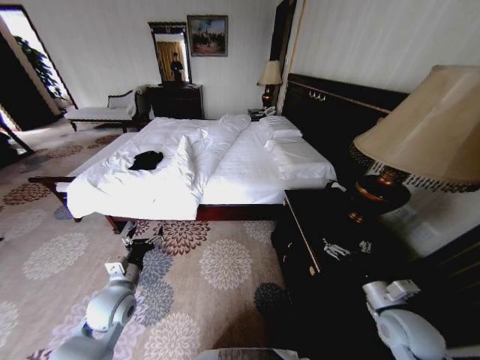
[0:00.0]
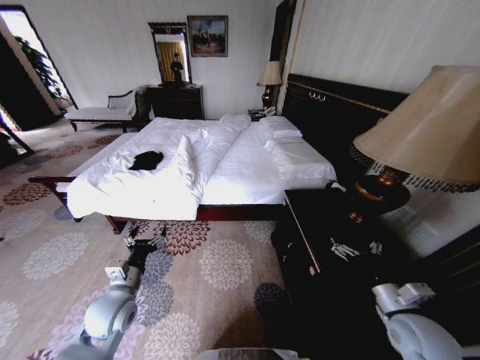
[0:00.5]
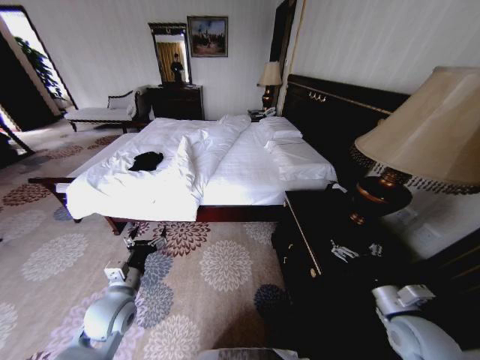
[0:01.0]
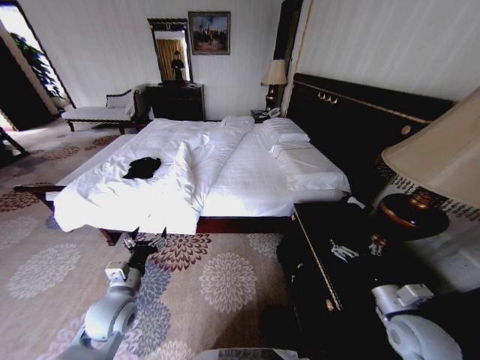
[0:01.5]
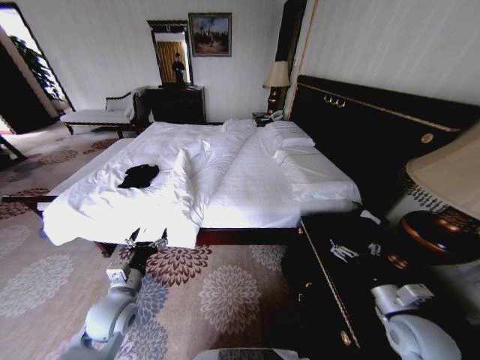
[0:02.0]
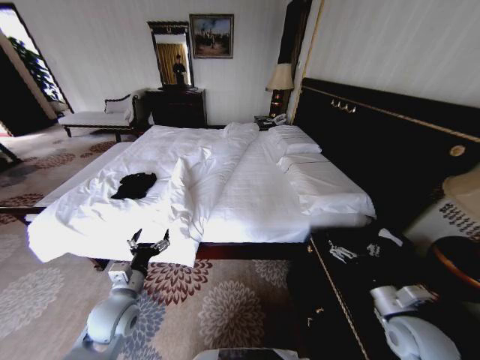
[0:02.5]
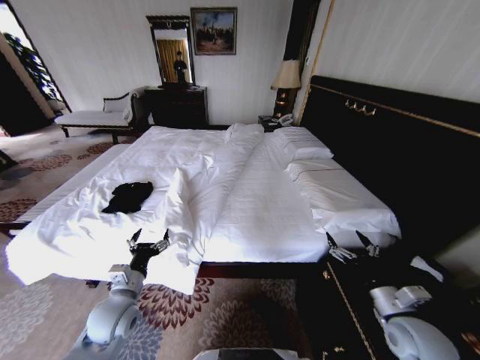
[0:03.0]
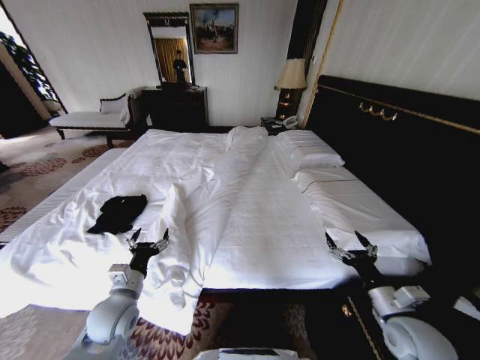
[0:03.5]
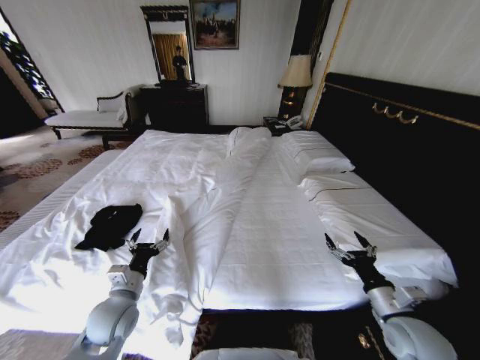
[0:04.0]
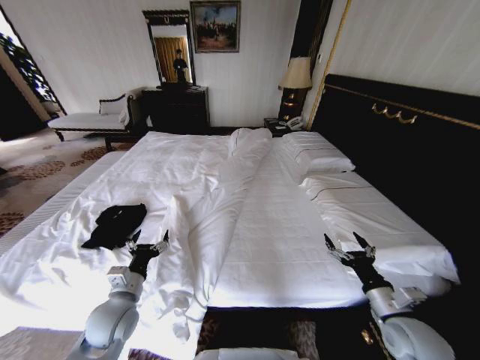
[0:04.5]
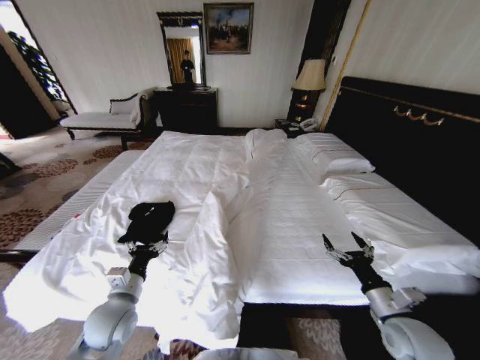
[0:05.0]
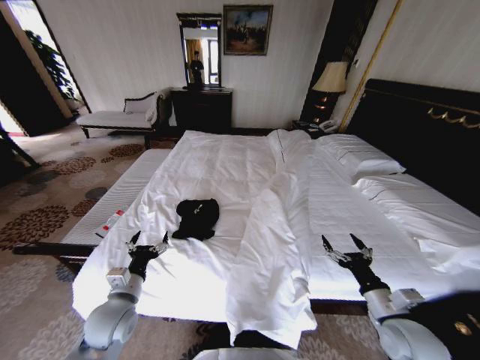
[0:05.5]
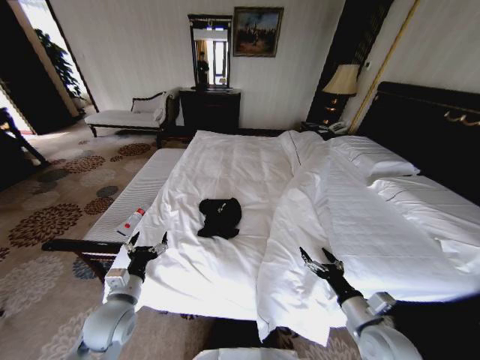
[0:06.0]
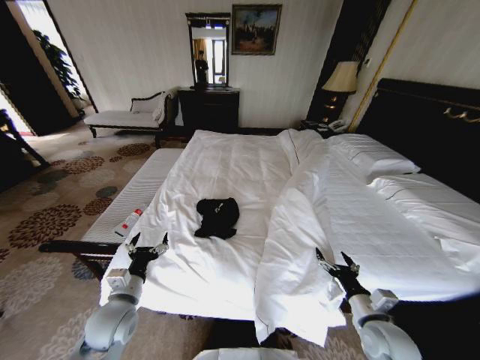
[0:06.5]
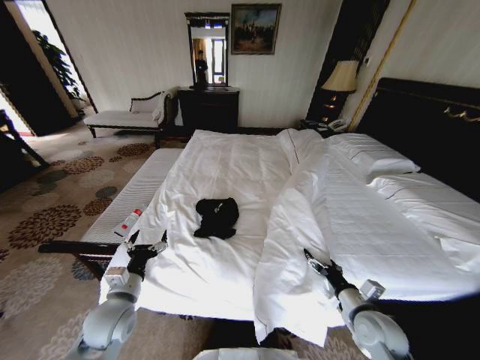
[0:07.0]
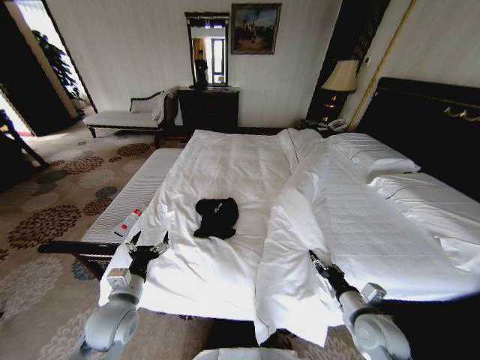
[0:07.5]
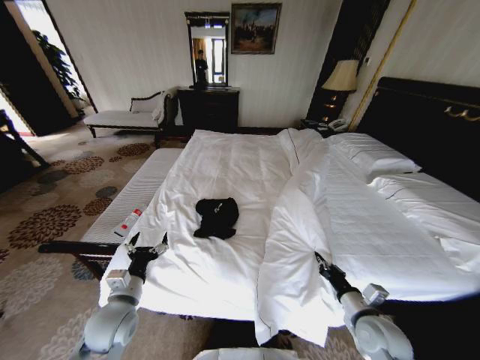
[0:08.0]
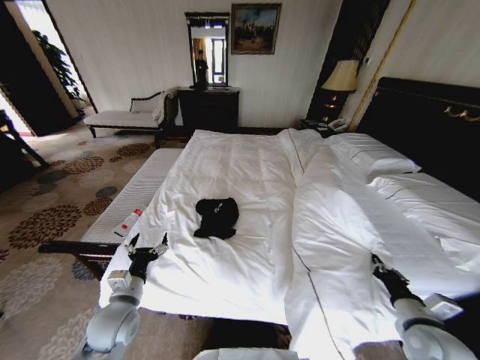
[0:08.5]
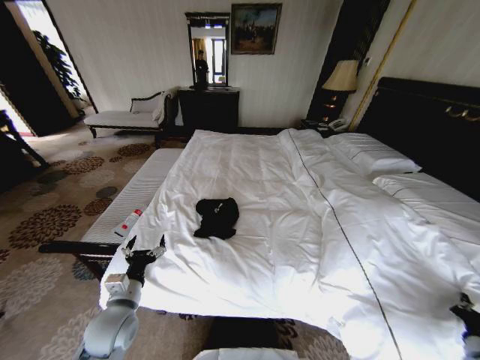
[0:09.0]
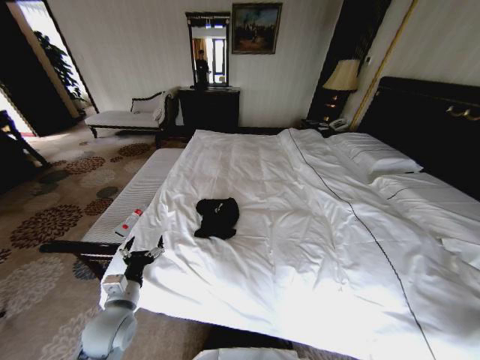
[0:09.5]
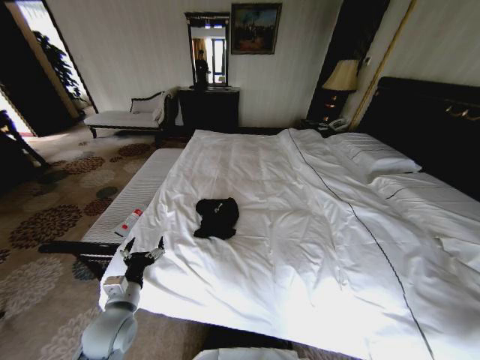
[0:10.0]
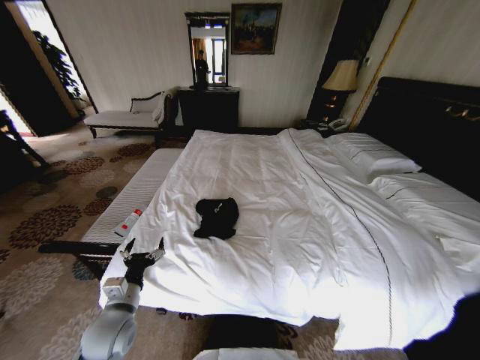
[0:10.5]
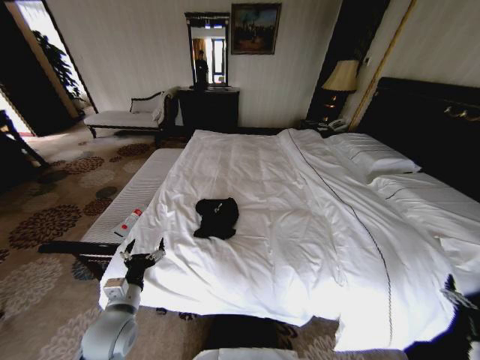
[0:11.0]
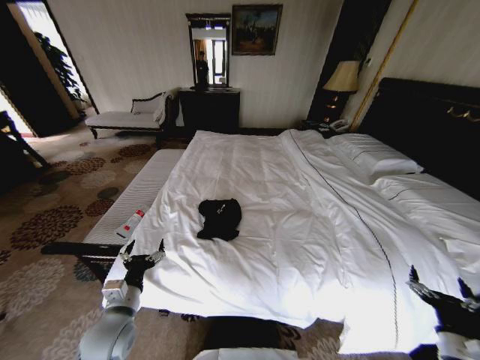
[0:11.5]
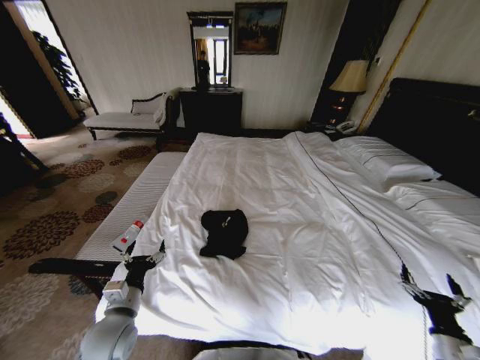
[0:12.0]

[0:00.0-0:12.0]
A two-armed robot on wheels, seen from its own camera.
Task of the whole recording: Fold the clothes on the bed.
4.0 to 6.0 s: The right gripper ends up about 5 cm from where it was.
6.0 to 8.0 s: The right gripper closes up.
8.0 to 10.0 s: The right gripper shifts about 35 cm to the right.
10.0 to 12.0 s: The right gripper moves to the left, some 15 cm, and opens its fingers.

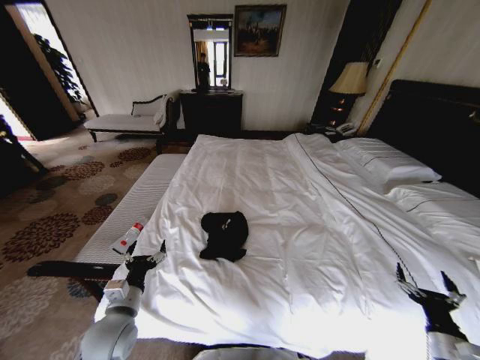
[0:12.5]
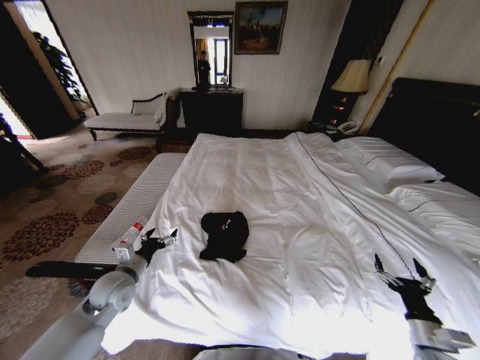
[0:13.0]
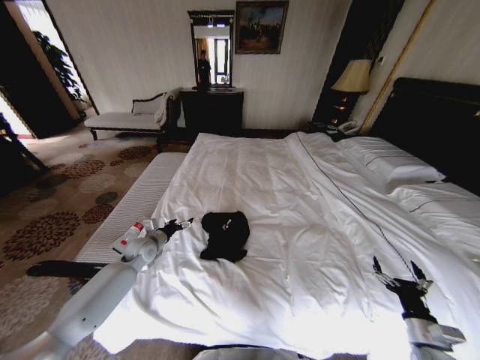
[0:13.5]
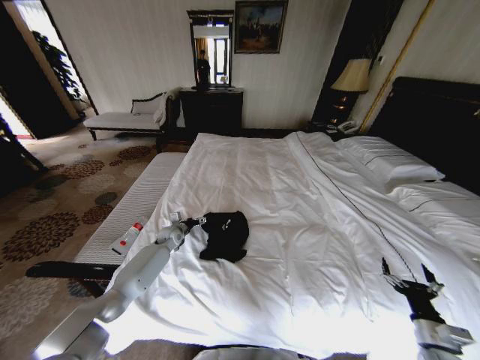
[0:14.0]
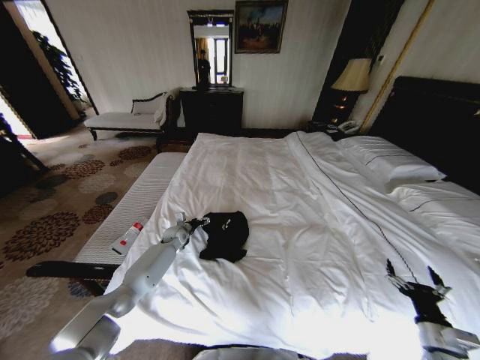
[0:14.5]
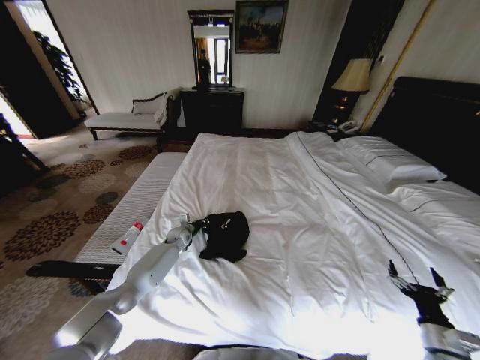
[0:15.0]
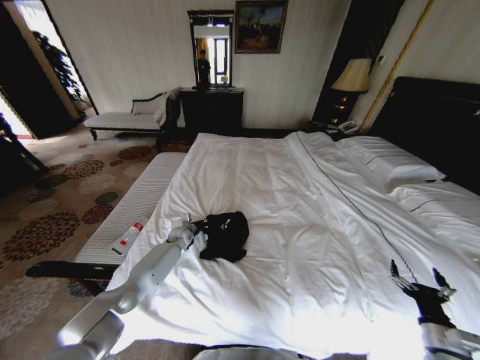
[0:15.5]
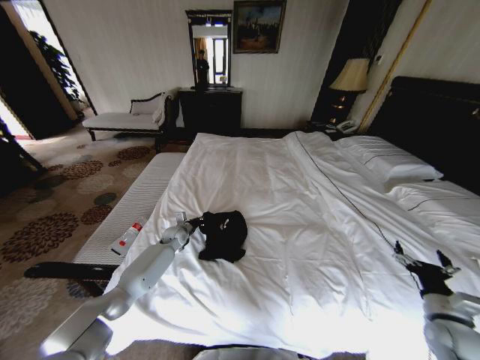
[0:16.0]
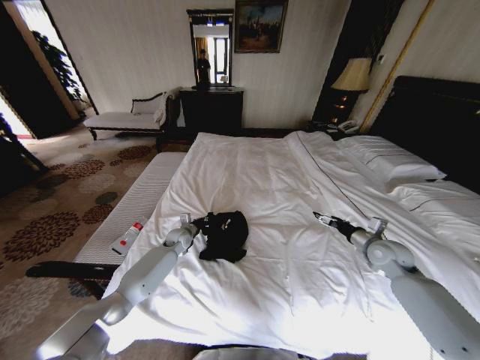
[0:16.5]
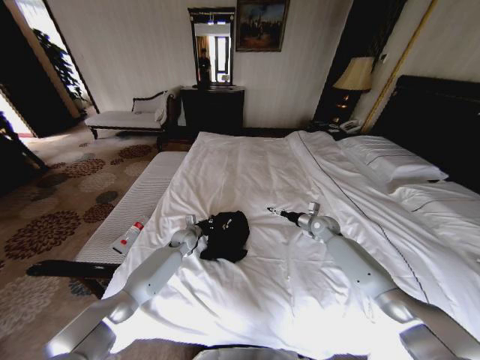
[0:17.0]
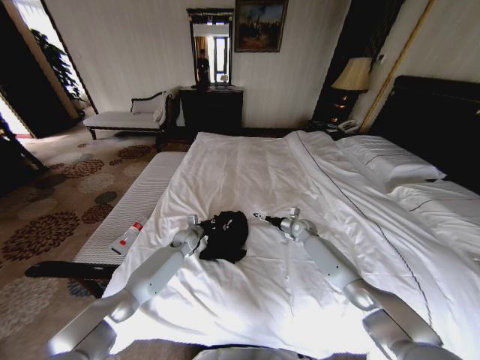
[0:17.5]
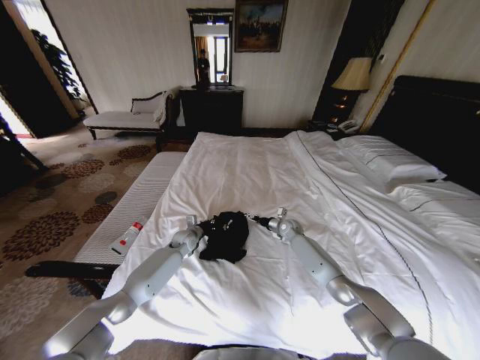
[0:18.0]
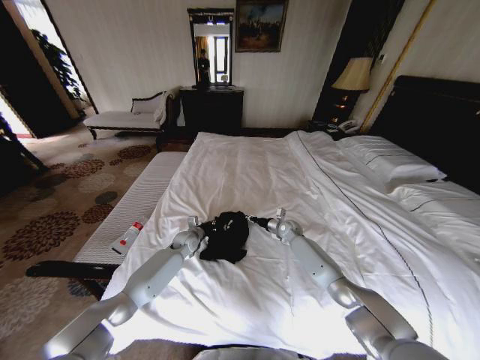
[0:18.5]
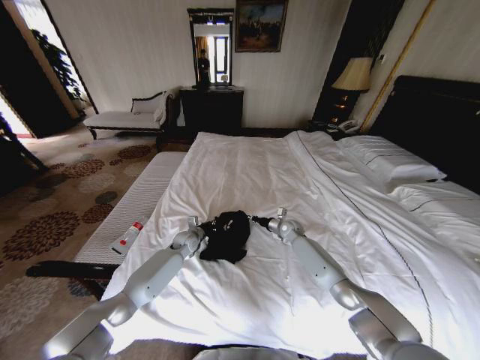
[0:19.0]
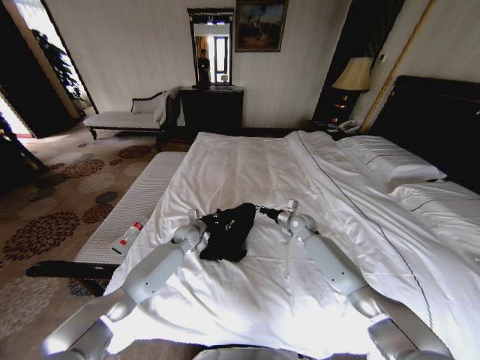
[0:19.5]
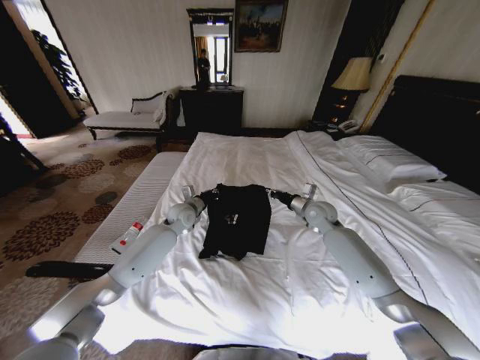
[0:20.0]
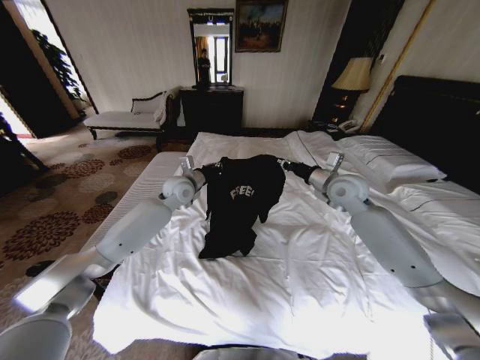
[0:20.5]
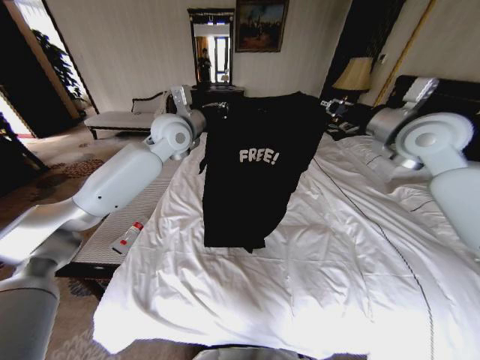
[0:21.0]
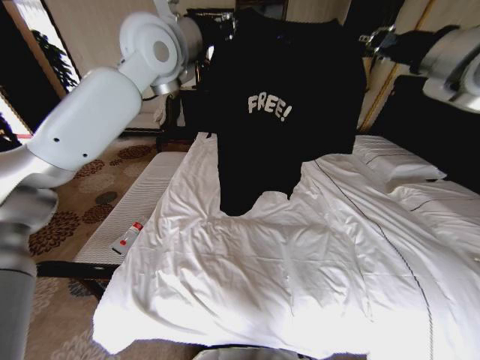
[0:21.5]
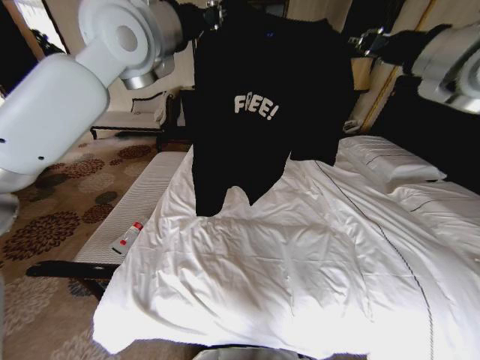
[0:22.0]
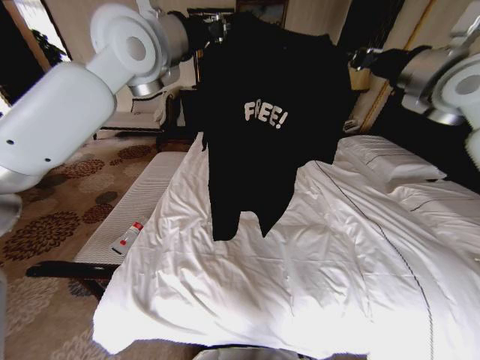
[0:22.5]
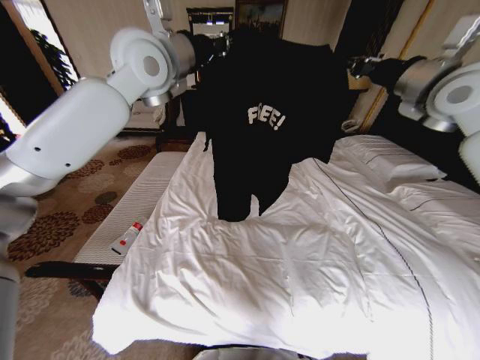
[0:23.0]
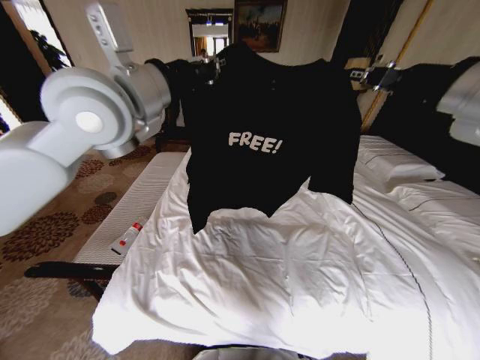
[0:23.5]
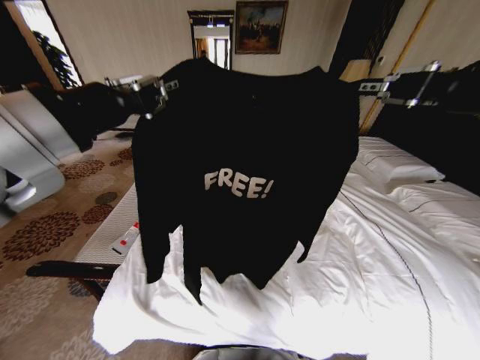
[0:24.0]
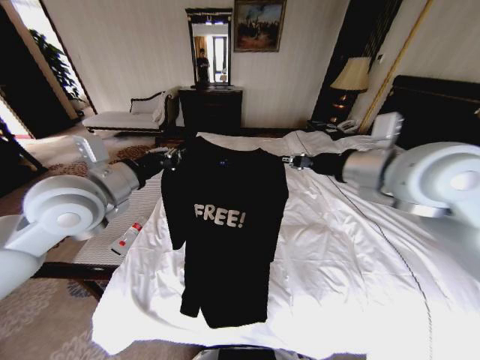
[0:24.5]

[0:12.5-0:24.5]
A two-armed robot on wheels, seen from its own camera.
Task of the whole recording: Fold the clothes on the bed.
12.5 to 14.5 s: The left gripper travels forward by roughly 35 cm.
14.5 to 16.5 s: The left gripper closes its fingers. The right gripper travels forward and upward by about 25 cm.
16.5 to 18.5 s: The right gripper shifts about 30 cm to the left, forward and downward, and closes up.
18.5 to 20.5 s: The two grippers go about 25 cm upward.
20.5 to 22.5 s: The two grippers go about 30 cm upward.
22.5 to 24.5 s: The right gripper travels to the left, downward and backward by approximately 20 cm, while the left gripper shifts approximately 25 cm downward, backward and to the left.

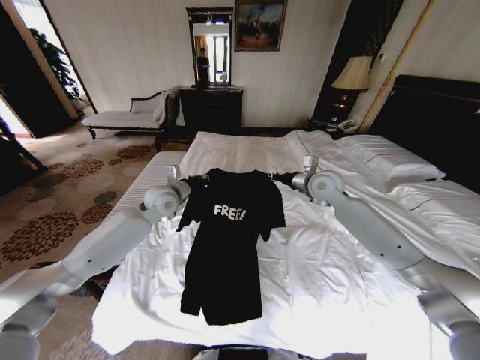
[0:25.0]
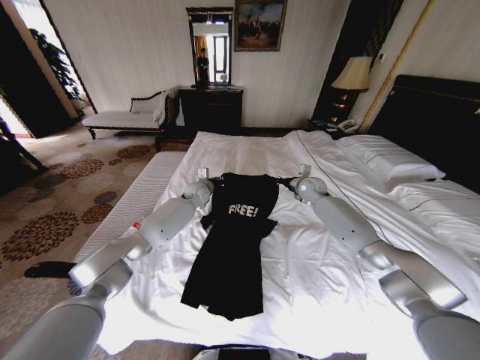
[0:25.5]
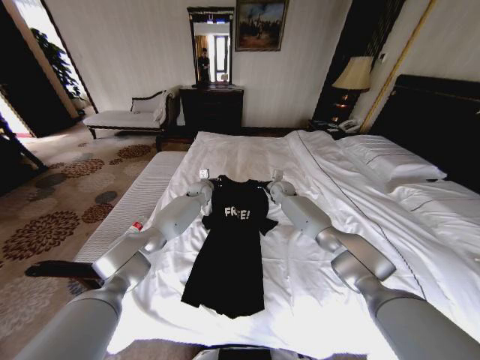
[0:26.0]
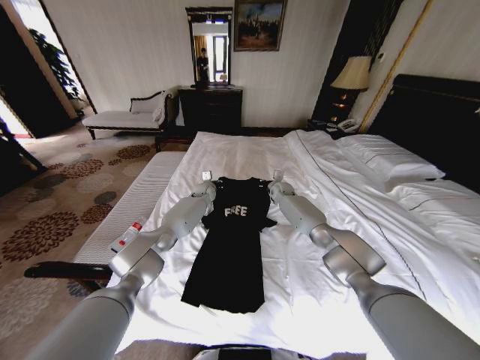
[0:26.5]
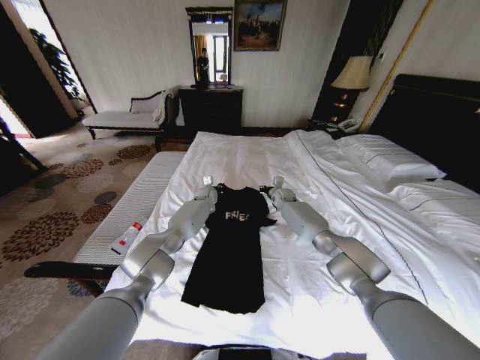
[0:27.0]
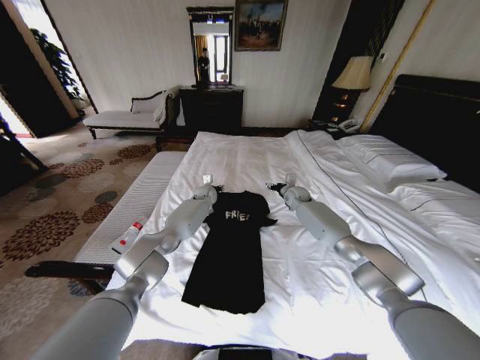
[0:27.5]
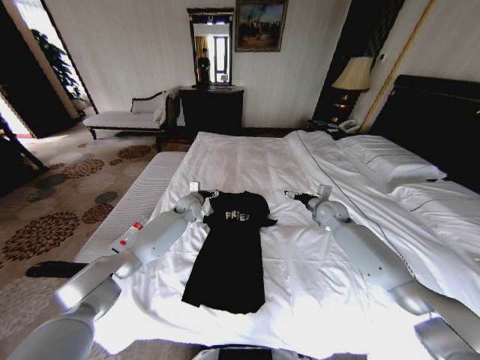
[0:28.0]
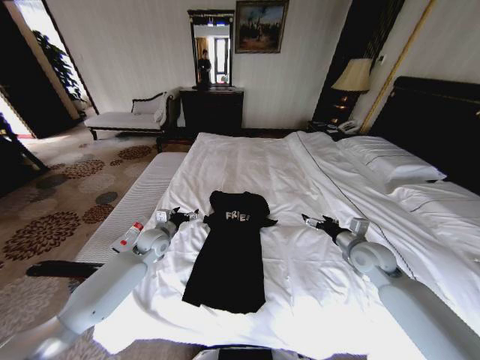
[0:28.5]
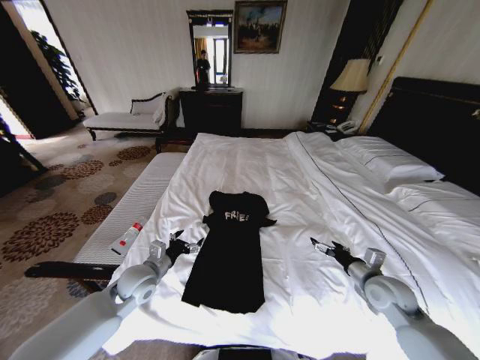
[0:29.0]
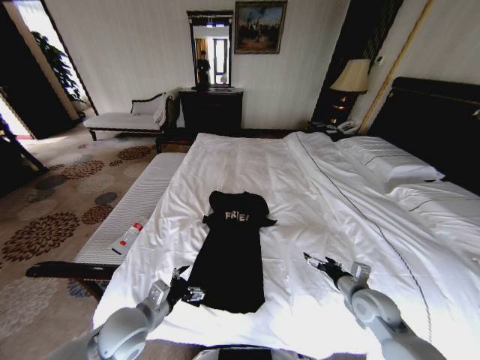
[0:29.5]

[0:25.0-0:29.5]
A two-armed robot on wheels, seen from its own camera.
Task of the whole recording: Fold the clothes on the bed.
25.0 to 27.0 s: The right gripper is displaced downward and forward by approximately 20 cm. The left gripper is displaced forward, downward and to the right by approximately 25 cm.
27.0 to 29.5 s: The grippers both shift backward by roughly 40 cm. The right gripper opens up. Meanwhile the left gripper opens up.
